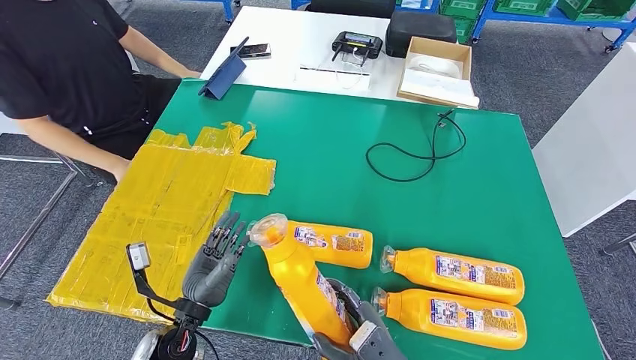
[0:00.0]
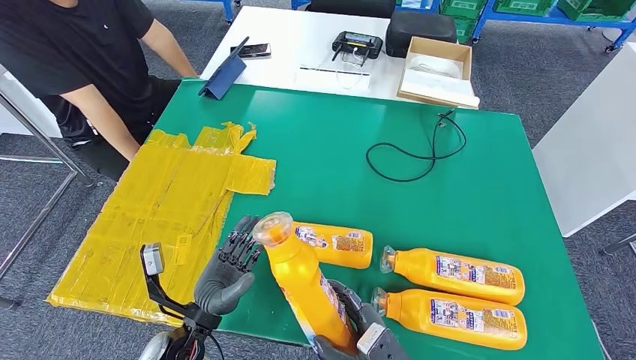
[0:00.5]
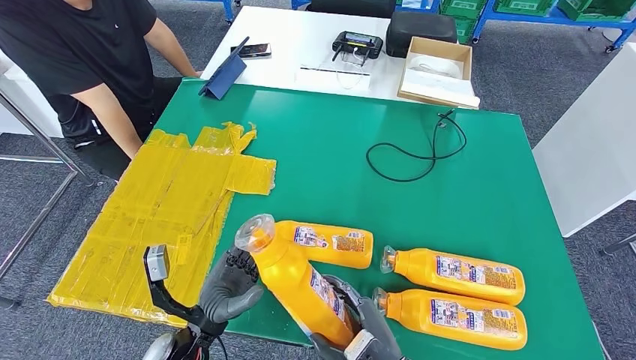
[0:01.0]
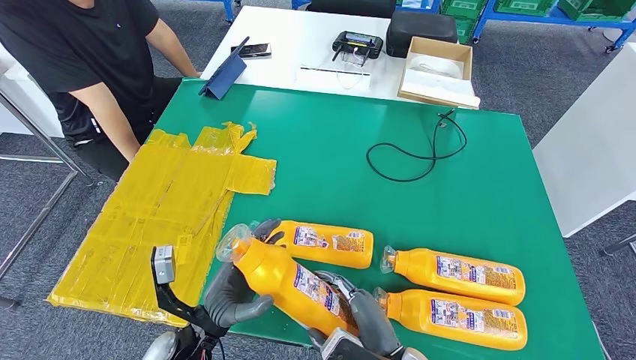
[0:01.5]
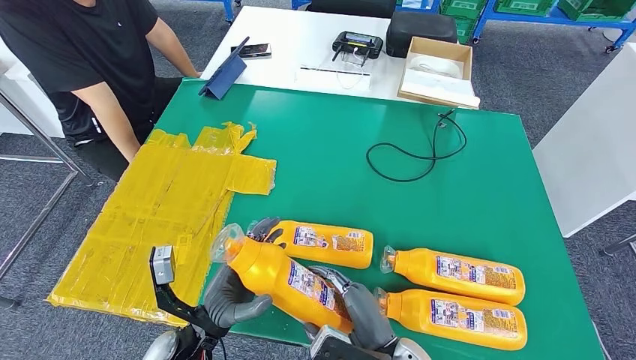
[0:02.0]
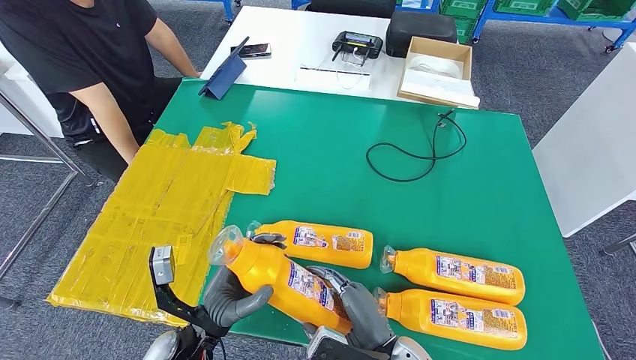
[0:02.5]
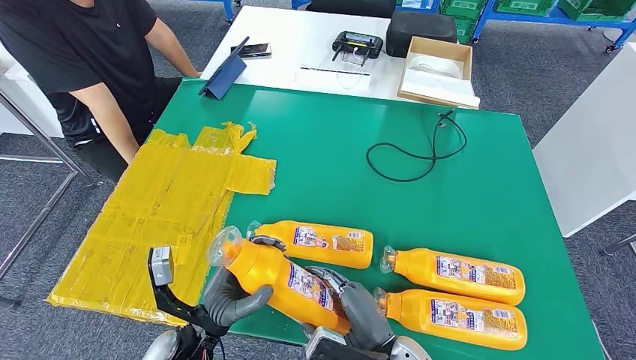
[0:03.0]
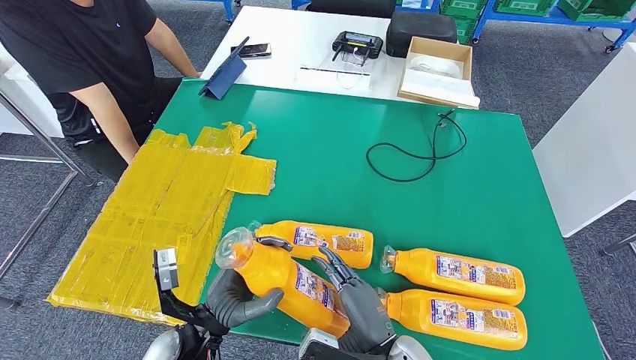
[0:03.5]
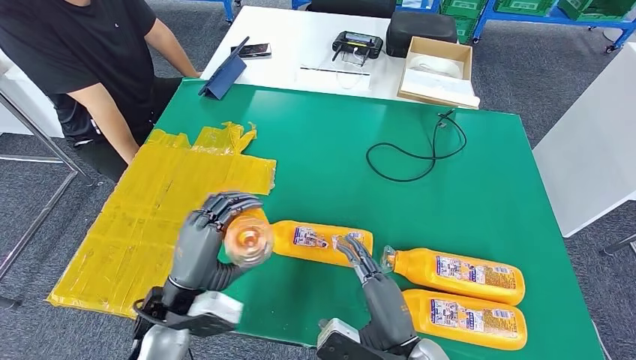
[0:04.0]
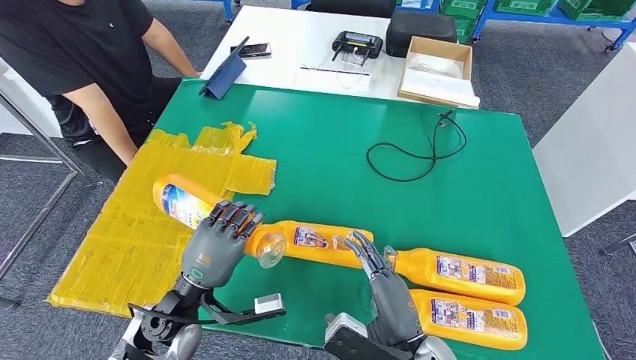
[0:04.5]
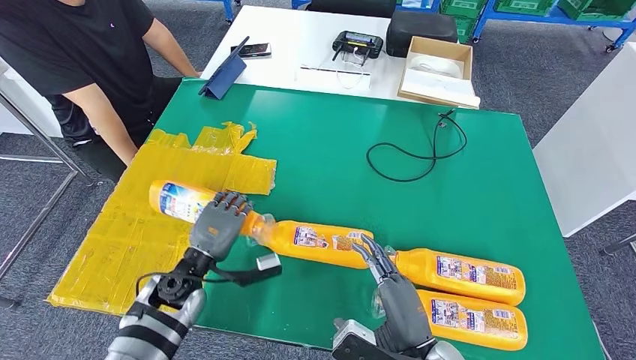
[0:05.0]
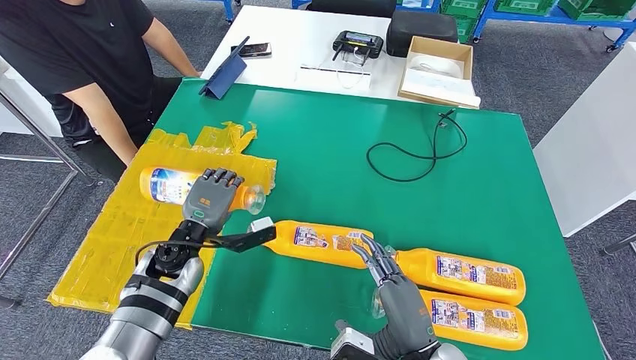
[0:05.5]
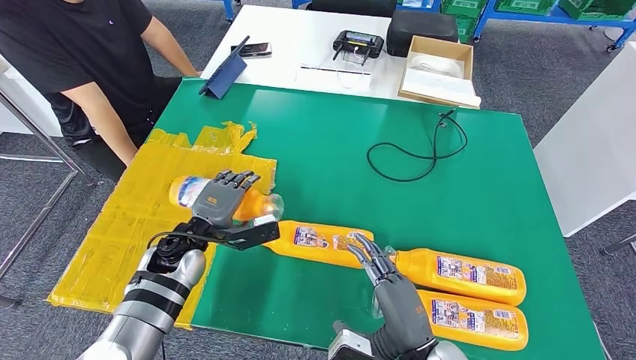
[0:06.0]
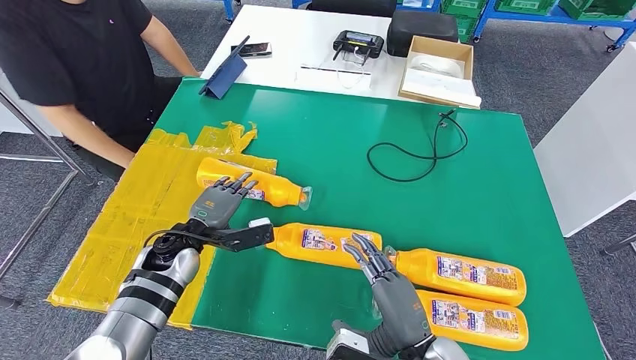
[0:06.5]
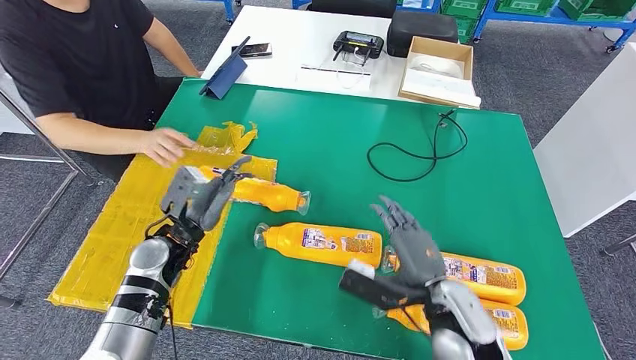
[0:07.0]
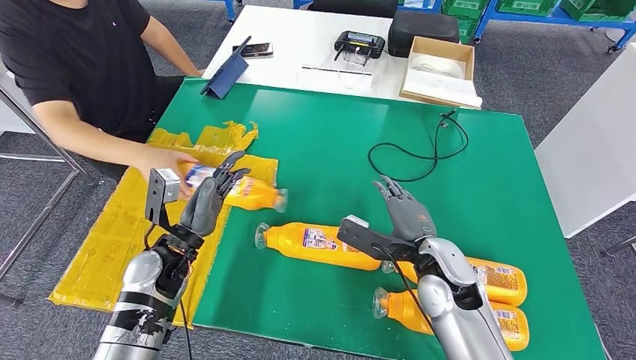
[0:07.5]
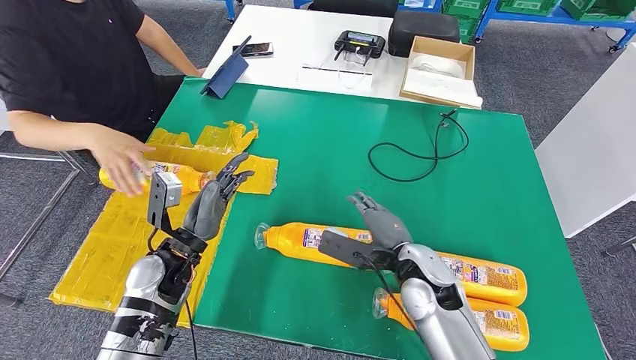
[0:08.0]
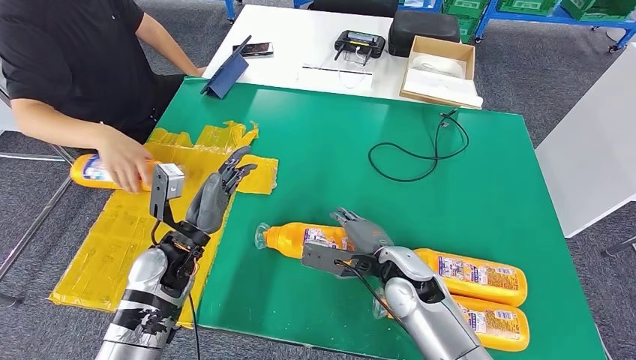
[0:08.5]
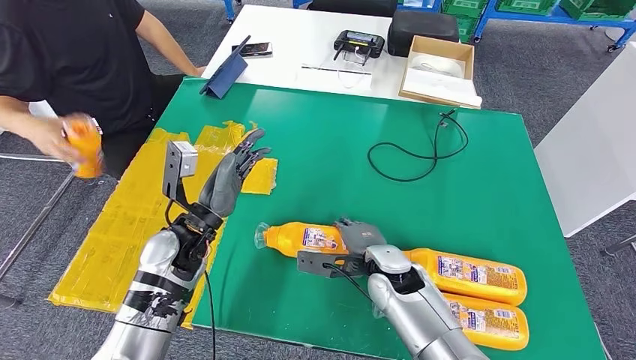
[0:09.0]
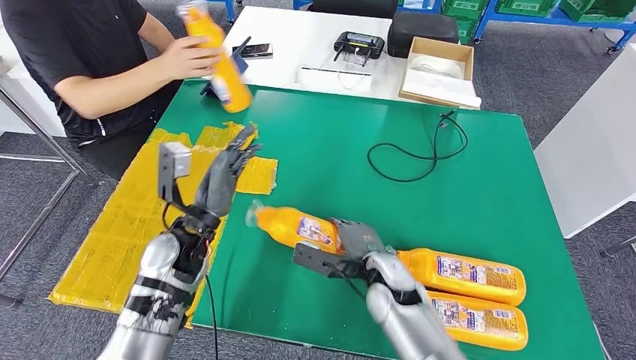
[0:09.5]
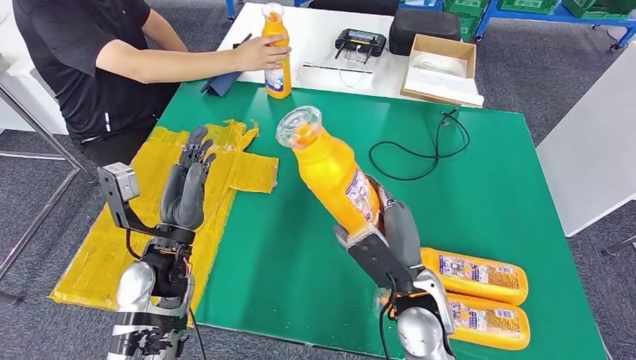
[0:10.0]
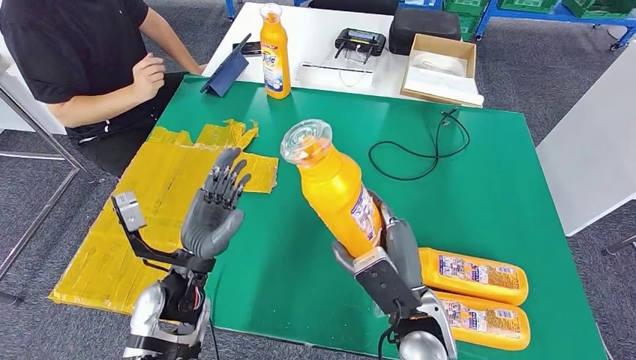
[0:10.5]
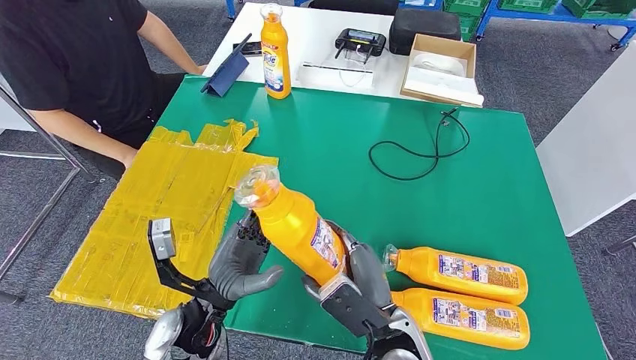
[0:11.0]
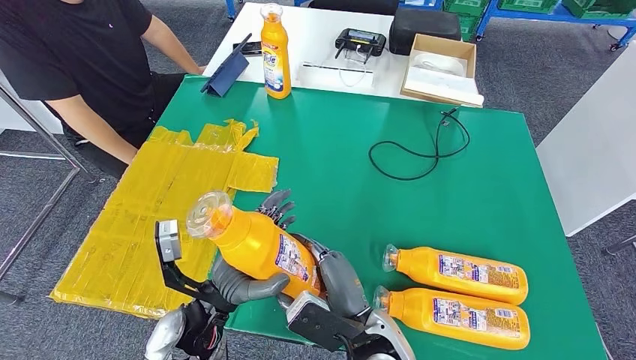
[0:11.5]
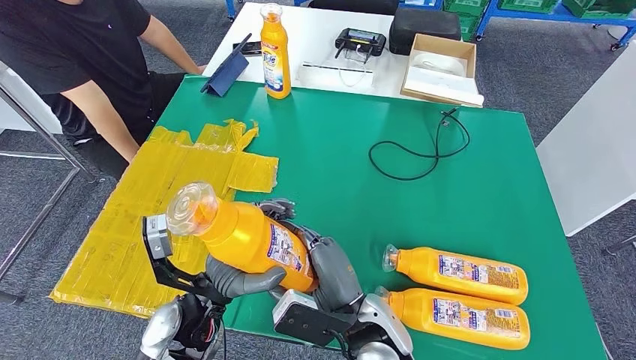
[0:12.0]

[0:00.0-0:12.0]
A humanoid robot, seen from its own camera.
Step, 0:00.0 to 0:07.0: Flip the fast-moving consumer goods bottle to the front side.
Step, 0:07.5 to 0:10.0: Pick up the fast-moving consumer goods bottle from the table.
0:02.0 to 0:04.0: The left hand heads upward, covering some 5 cm.
0:04.0 to 0:06.0: The left hand travels forward by approximately 15 cm.
0:06.0 to 0:08.0: The right hand shifts some 15 cm forward.

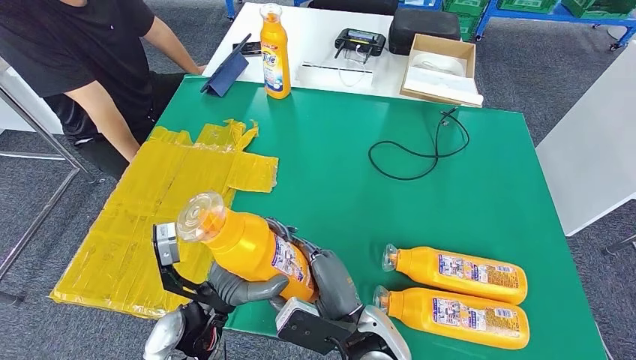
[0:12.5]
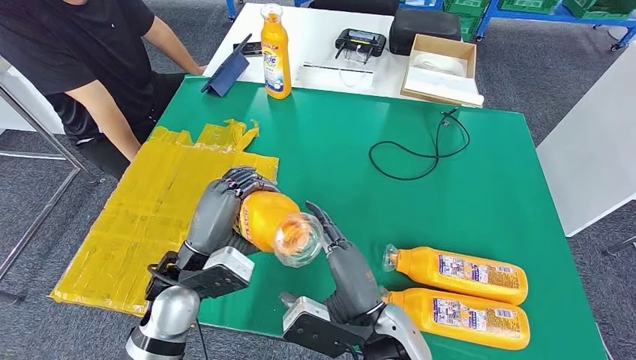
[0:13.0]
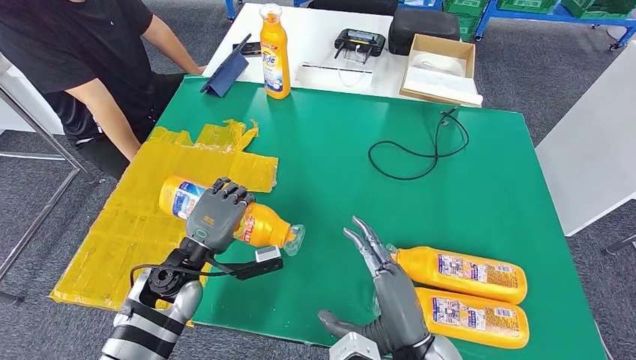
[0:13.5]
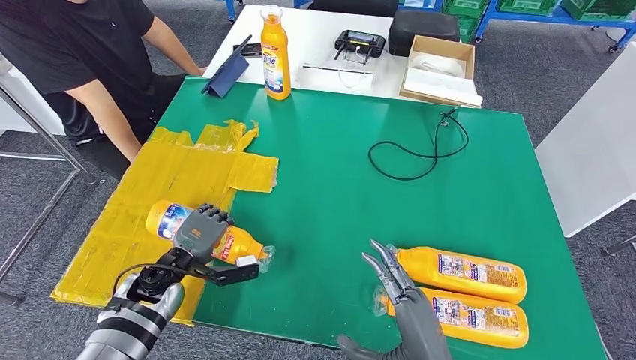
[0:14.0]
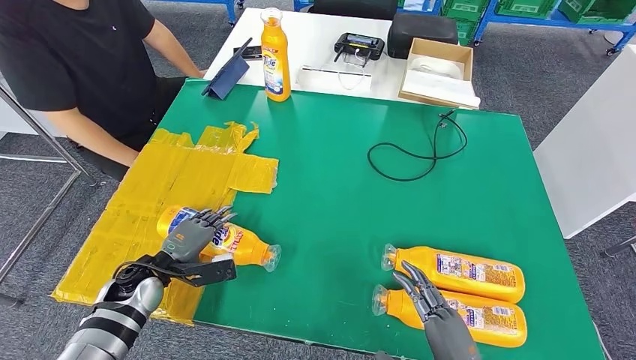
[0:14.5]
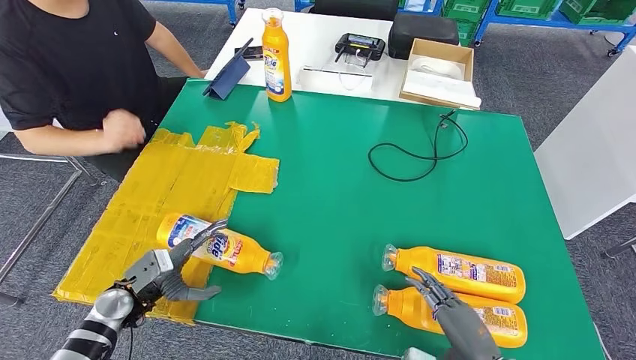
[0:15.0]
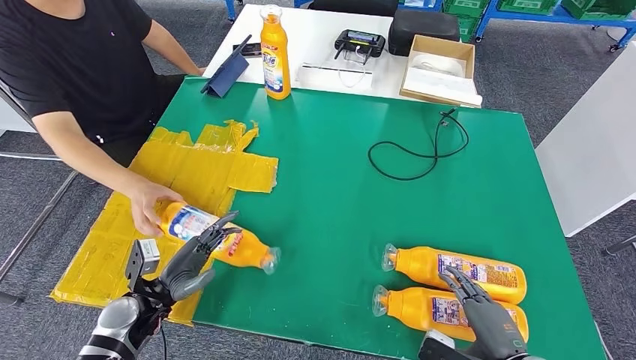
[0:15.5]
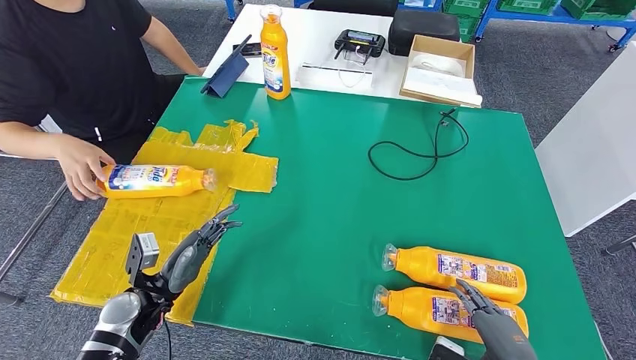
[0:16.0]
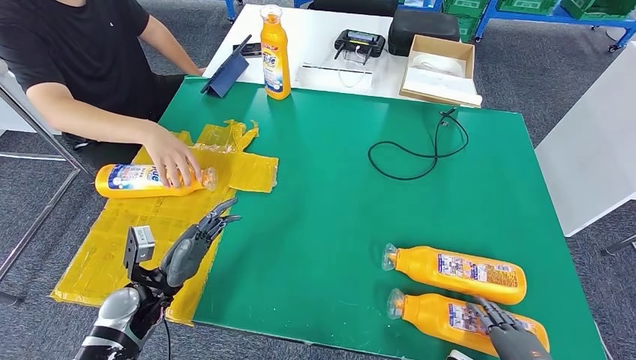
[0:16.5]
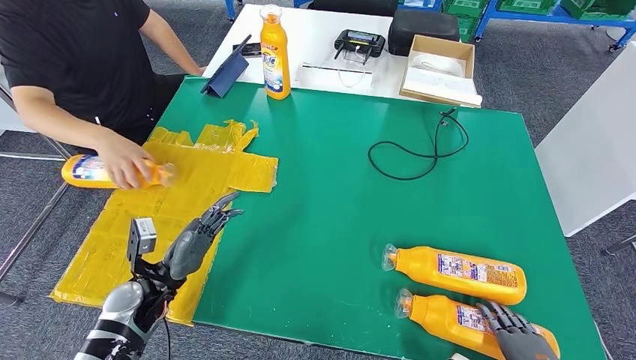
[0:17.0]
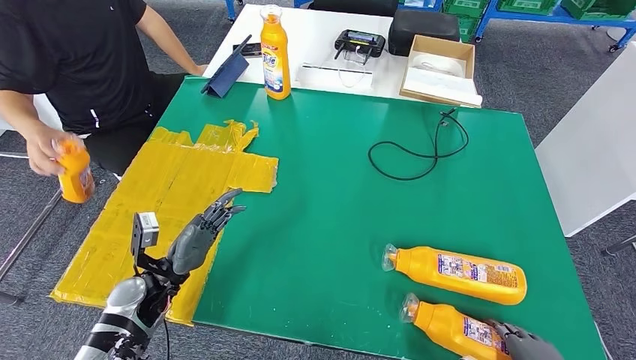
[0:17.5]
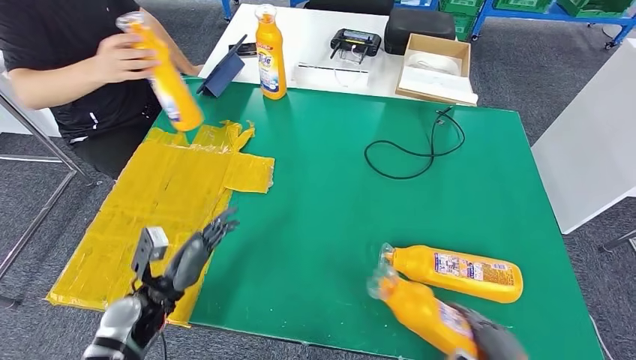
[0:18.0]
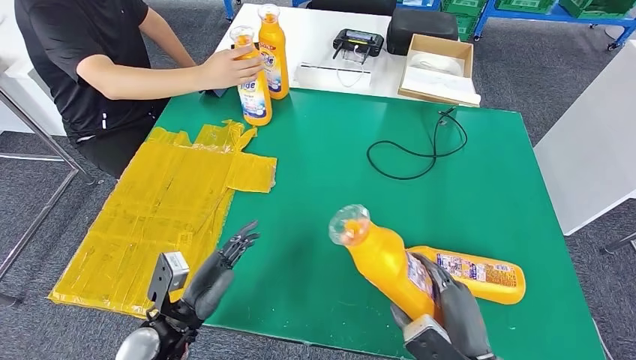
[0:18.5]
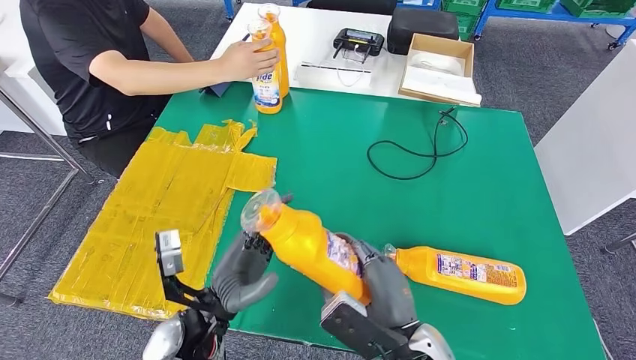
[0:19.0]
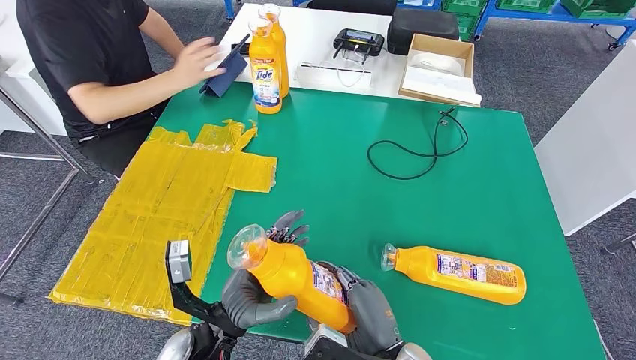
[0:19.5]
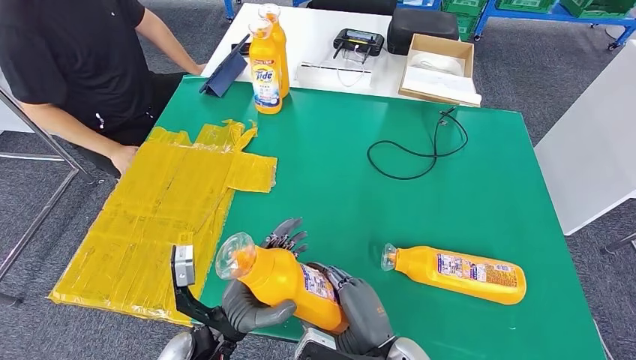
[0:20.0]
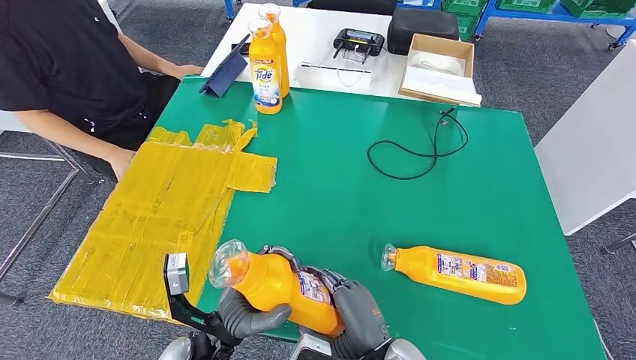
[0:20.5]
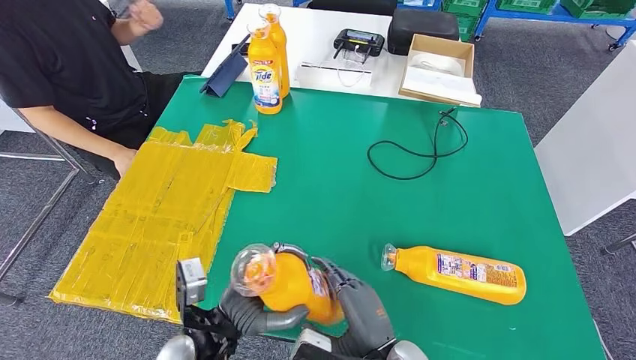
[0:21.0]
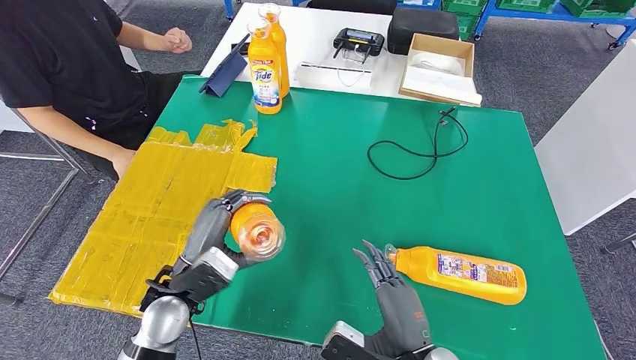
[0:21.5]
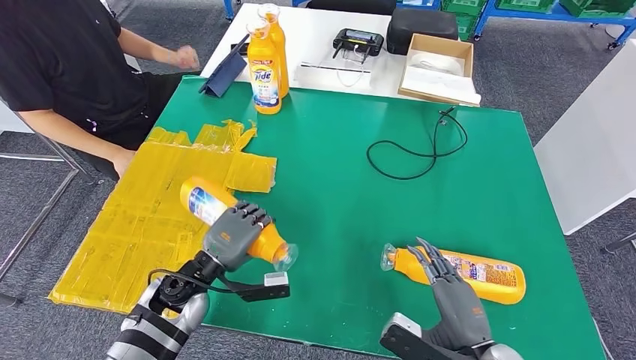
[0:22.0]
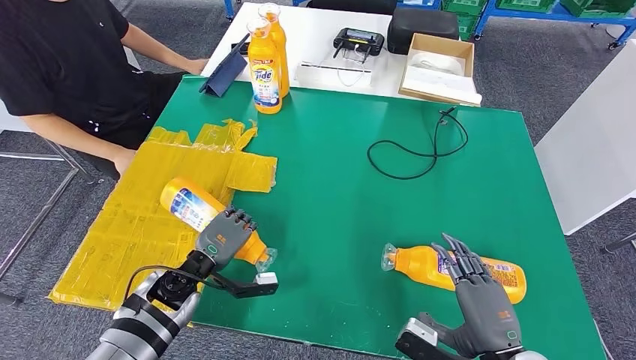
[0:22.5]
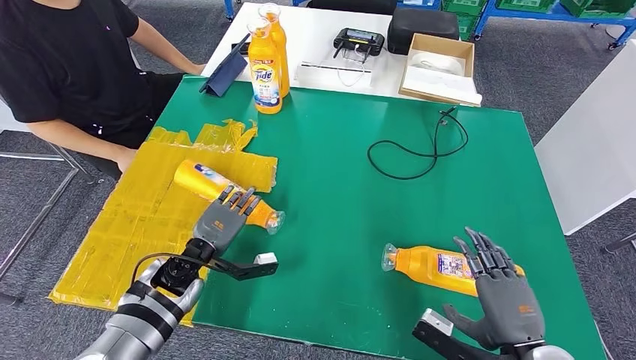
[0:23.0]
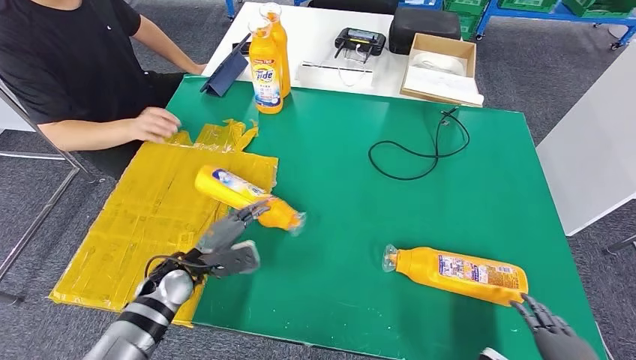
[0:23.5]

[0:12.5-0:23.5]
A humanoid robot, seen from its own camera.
Step, 0:12.5 to 0:15.0: Flip the fast-moving consumer goods bottle to the front side.
Step, 0:16.0 to 0:18.0: Pick up the fast-moving consumer goods bottle from the table.
0:14.5 to 0:16.0: The left hand changes place by about 5 cm. The right hand is displaced to the right by roughly 10 cm.
0:20.0 to 0:21.5: The left hand shifts about 10 cm to the left and forward.
0:21.5 to 0:23.5: The right hand travels to the right by approximately 25 cm. Meanwhile the left hand moves downward and forward, some 10 cm.
